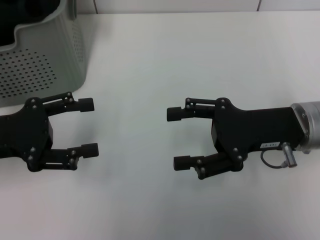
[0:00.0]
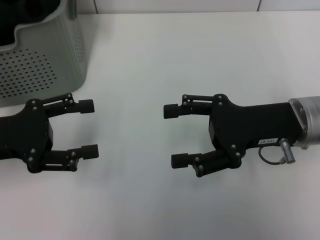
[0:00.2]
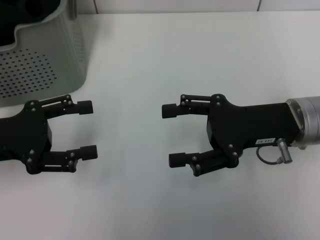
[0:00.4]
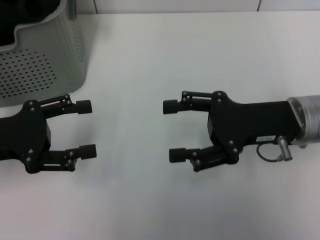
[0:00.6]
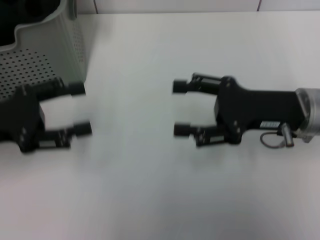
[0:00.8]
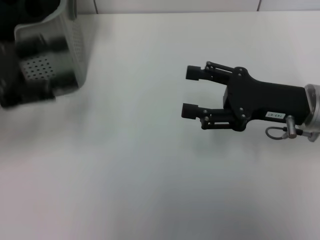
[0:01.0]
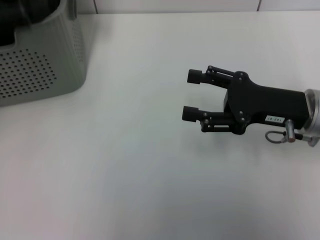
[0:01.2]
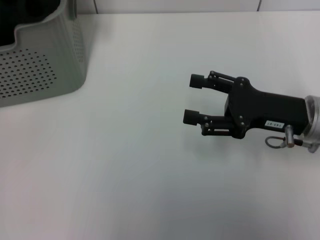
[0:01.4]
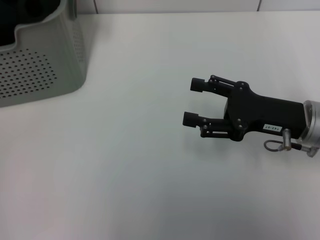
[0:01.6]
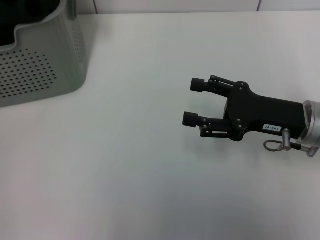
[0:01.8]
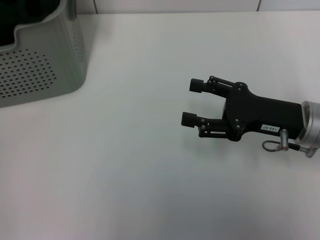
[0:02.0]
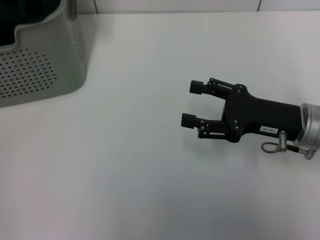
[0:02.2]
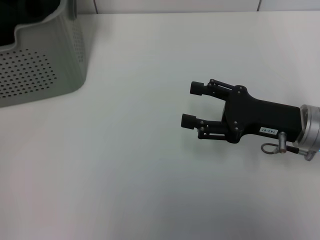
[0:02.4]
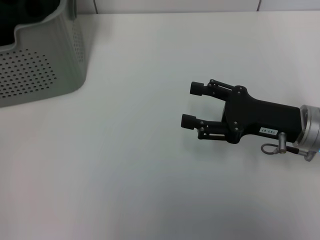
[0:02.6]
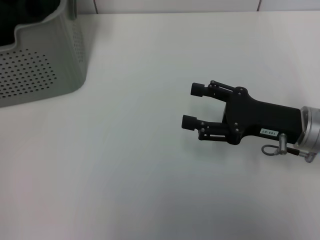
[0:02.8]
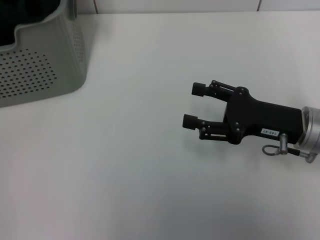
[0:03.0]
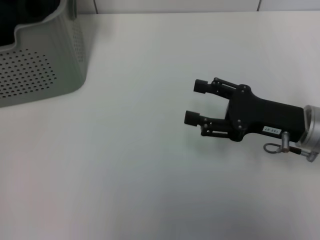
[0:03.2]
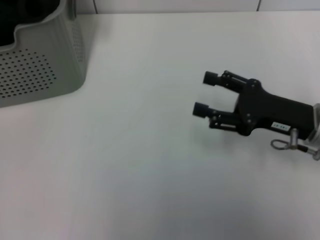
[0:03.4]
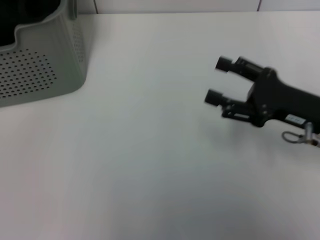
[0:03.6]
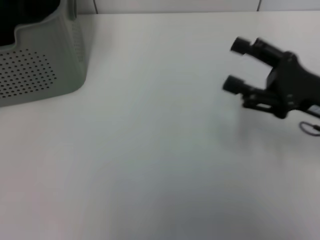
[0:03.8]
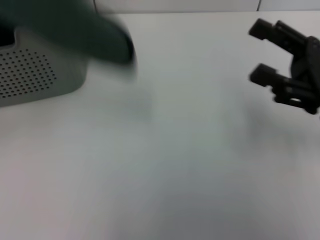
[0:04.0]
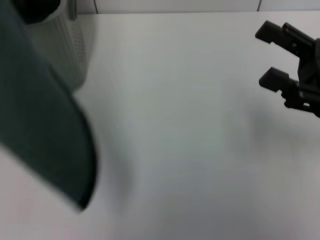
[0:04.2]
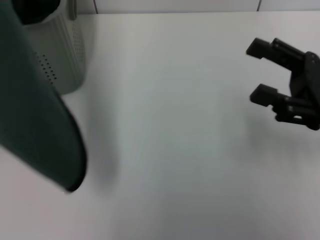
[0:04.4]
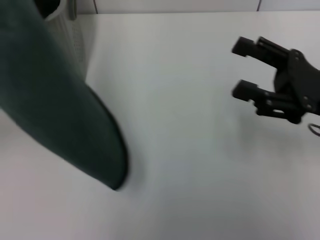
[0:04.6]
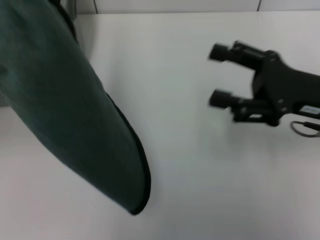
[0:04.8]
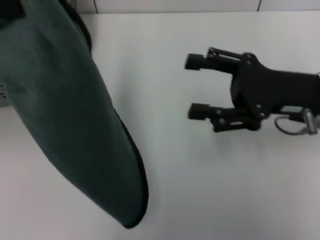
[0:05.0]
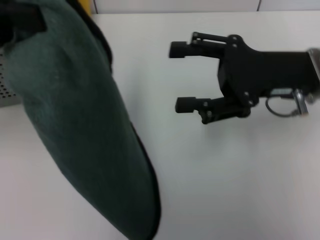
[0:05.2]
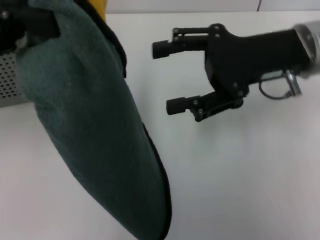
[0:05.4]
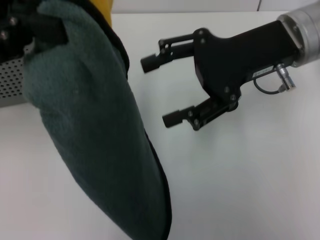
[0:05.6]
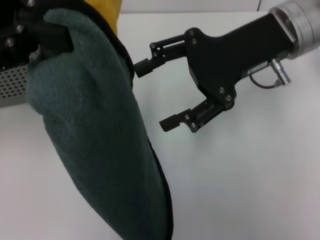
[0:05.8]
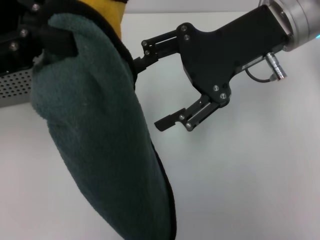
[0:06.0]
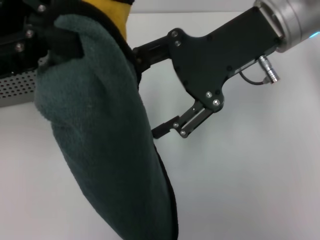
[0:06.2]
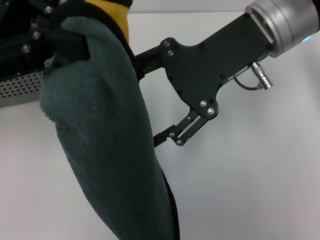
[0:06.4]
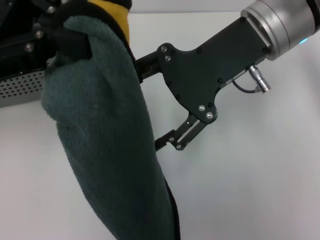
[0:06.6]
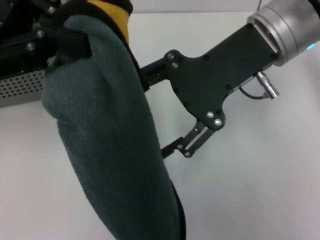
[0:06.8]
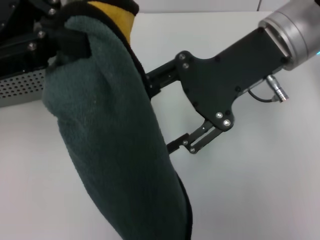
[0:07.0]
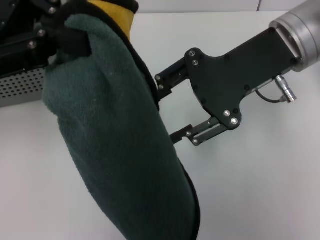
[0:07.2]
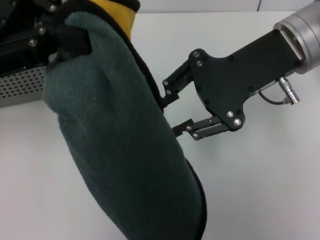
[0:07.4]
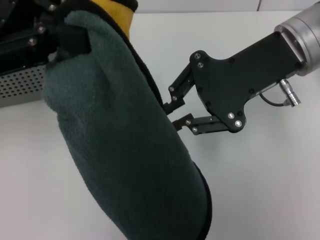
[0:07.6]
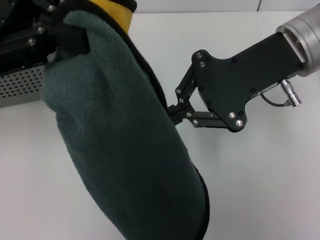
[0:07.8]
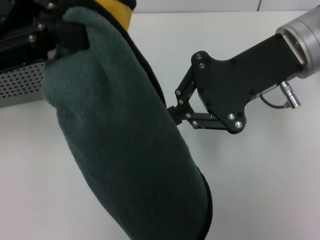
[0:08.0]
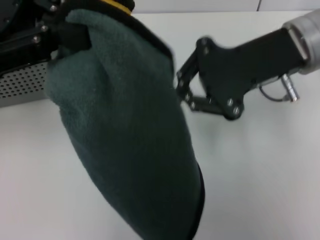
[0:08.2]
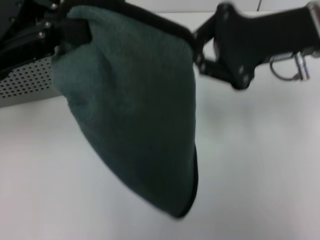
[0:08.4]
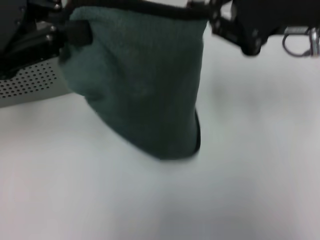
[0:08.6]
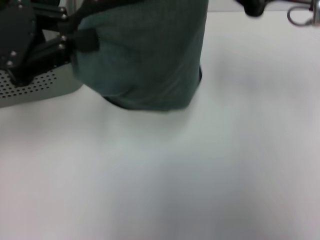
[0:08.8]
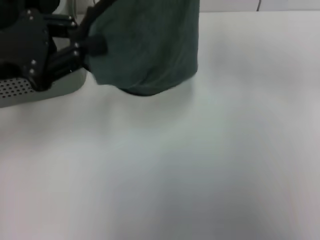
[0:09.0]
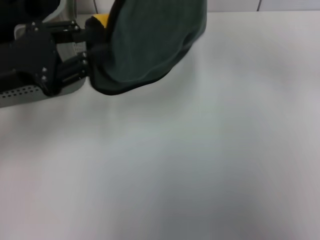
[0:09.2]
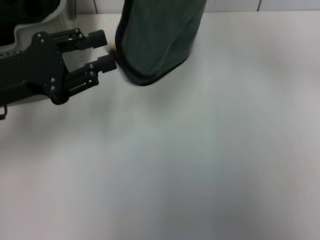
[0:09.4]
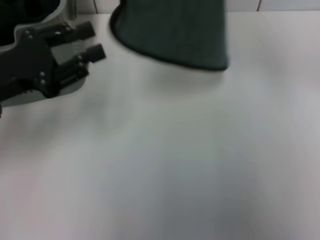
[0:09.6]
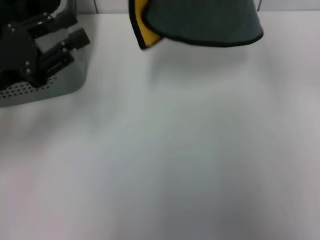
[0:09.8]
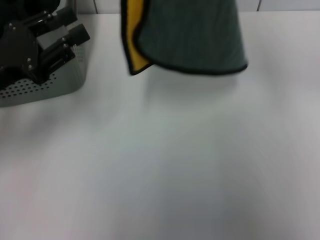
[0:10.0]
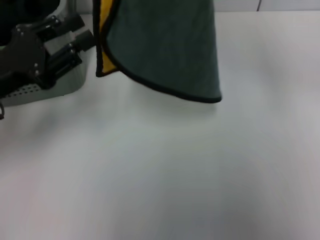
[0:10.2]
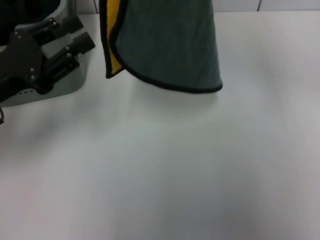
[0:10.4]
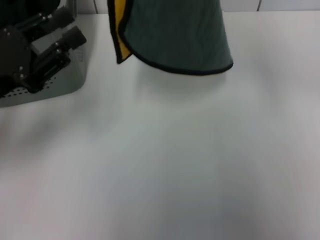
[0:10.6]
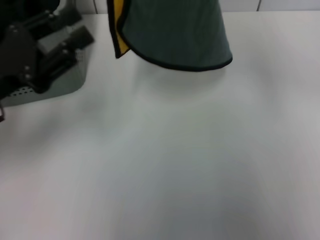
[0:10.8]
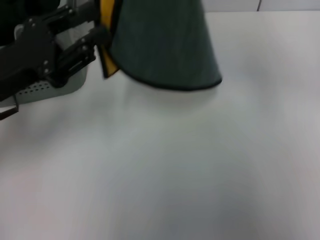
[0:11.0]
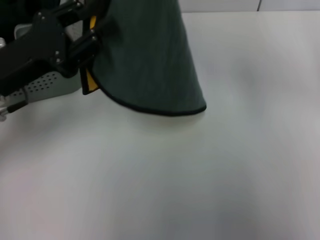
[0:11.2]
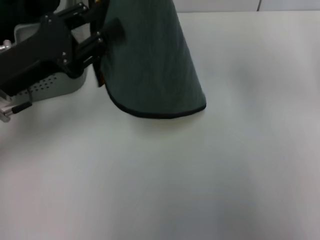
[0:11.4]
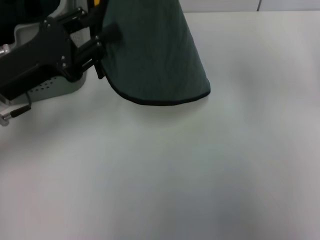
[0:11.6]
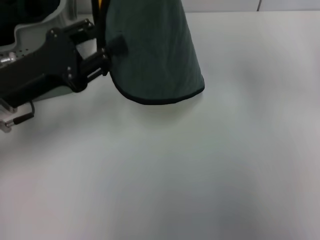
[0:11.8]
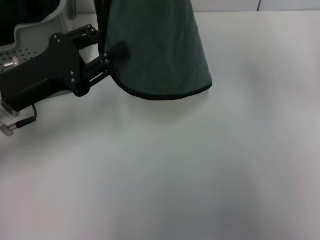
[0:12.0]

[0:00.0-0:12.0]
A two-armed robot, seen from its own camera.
Task of the whole recording: pick up the towel from the storage box and lay it flat on the table.
Step, 0:00.0 to 0:03.0: Pick up a towel with the left gripper.
Step, 0:03.2 to 0:07.6: Spread the towel flat with the left gripper.
0:00.0 to 0:01.6: The left gripper heads upward and forward, covering approximately 20 cm.
0:01.6 to 0:03.0: The left gripper closes.
0:03.0 to 0:04.4: The right gripper ends up about 5 cm from where it was. The left gripper is displaced backward by approximately 10 cm, and closes.
0:04.4 to 0:06.0: The left gripper heads to the right, covering some 10 cm; the right gripper travels to the left, upward and forward by approximately 20 cm.
0:06.0 to 0:07.6: The right gripper closes.
0:07.6 to 0:09.0: The left gripper heads downward, covering approximately 10 cm; the right gripper shifts roughly 5 cm to the right.
0:09.0 to 0:10.4: The left gripper shifts about 5 cm downward. Meanwhile the right gripper heads upward, covering some 5 cm.
0:10.4 to 0:12.0: The grippers make only small movements.

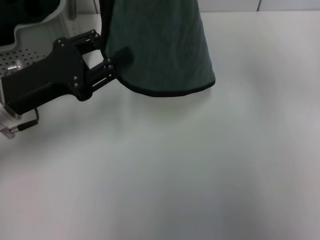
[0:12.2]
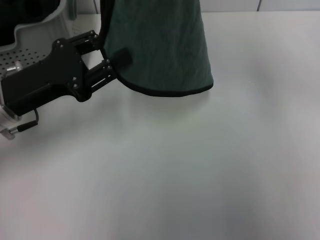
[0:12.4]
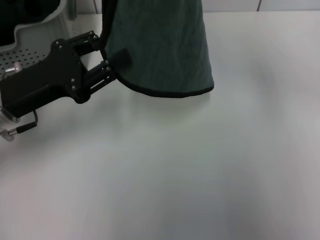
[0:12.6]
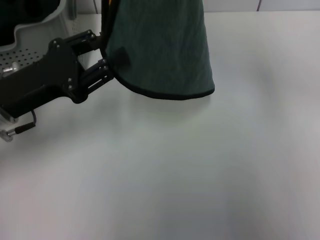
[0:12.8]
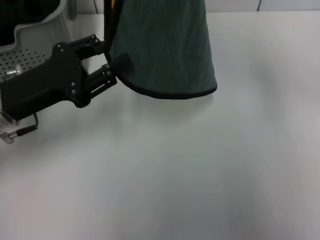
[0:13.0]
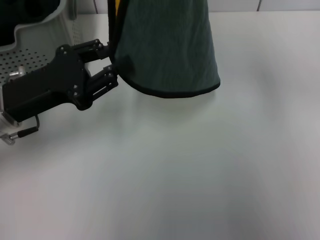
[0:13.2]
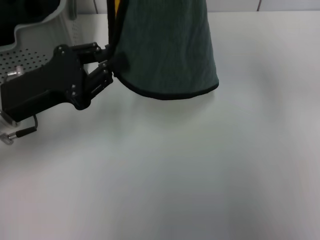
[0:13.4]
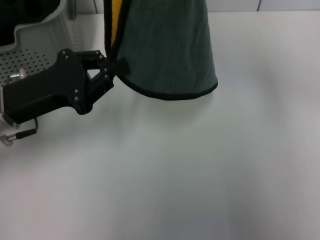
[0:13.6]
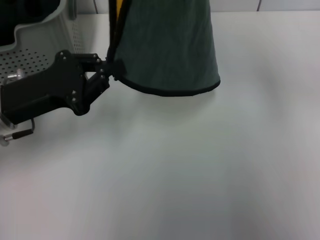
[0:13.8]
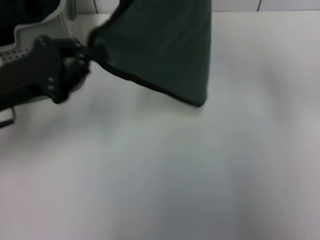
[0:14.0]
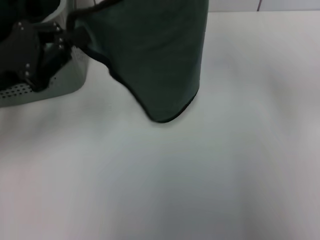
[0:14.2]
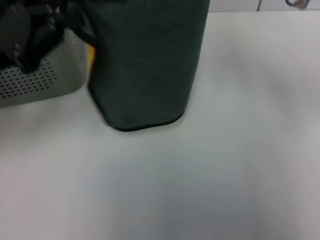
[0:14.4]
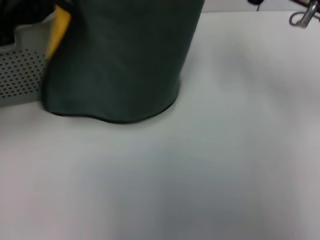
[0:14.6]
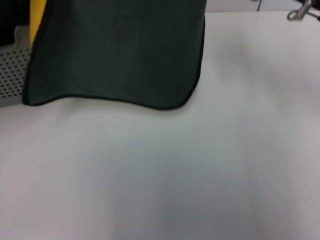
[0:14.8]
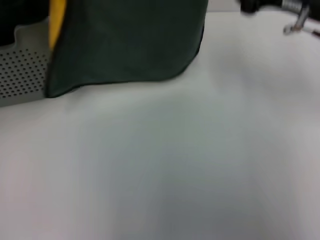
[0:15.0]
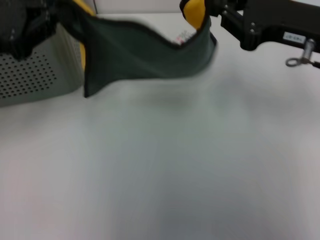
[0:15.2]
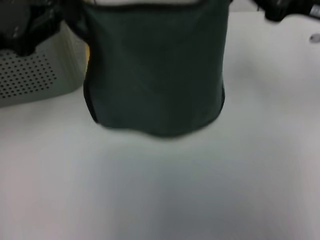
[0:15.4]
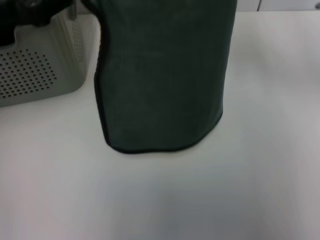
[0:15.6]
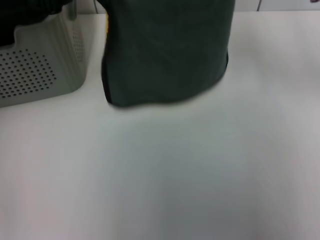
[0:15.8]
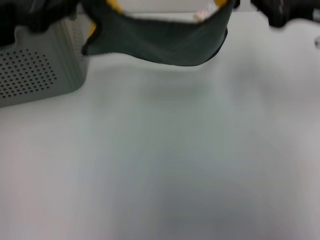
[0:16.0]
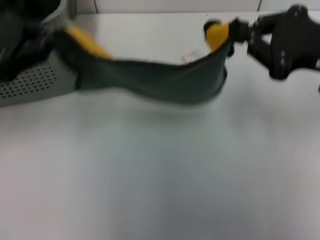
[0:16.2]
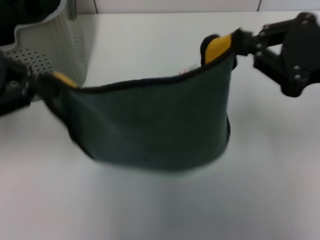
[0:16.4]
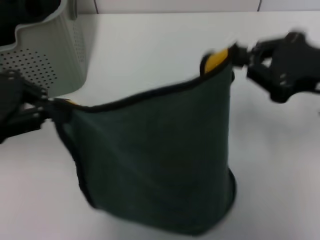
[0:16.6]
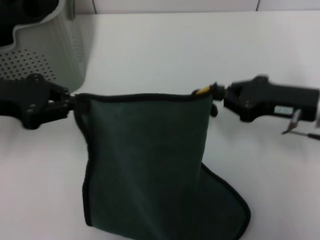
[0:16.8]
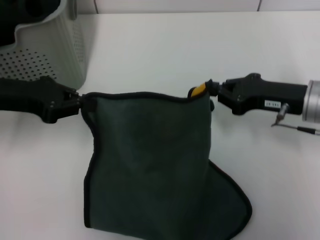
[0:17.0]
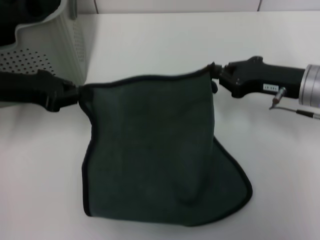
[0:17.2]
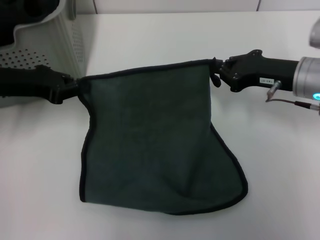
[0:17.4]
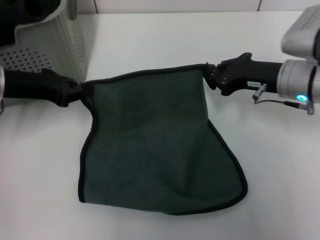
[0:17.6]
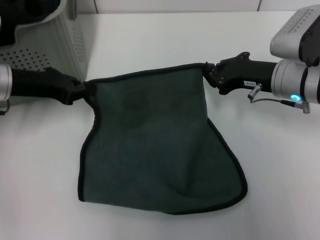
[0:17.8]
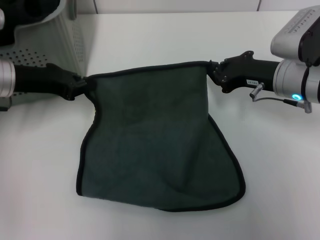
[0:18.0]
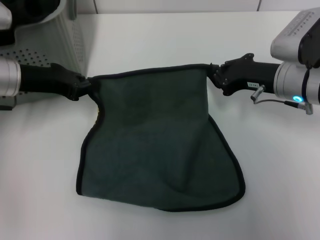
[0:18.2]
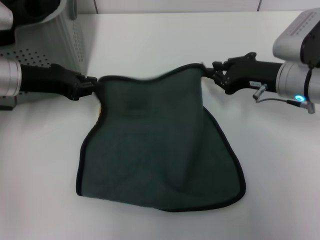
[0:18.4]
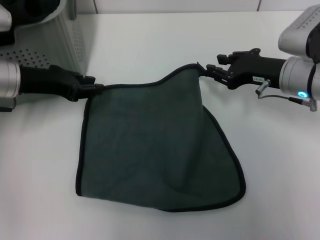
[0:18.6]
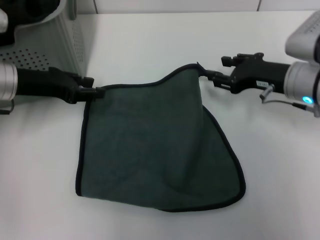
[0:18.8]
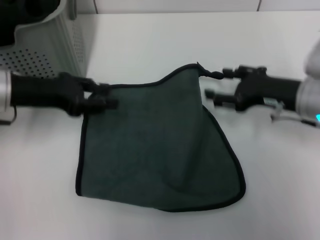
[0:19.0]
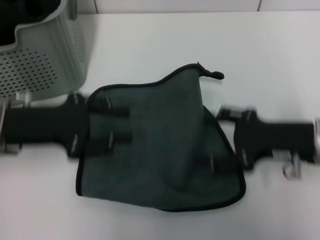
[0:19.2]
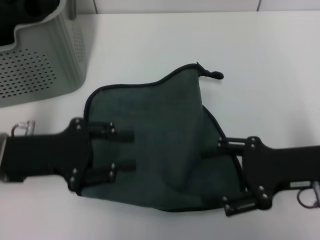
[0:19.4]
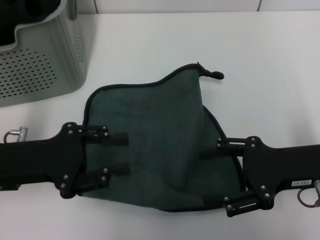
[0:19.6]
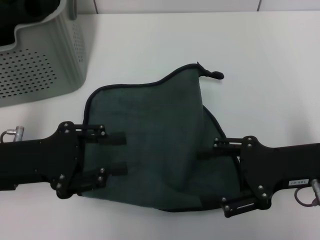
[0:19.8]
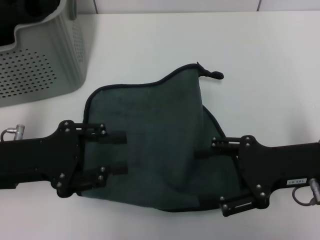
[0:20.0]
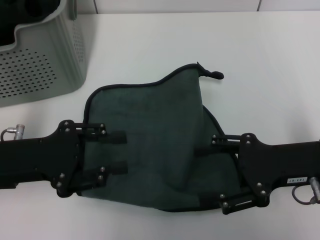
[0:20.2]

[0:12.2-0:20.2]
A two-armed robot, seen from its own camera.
Task of the whole recording: pick up the towel from the storage box and lay it flat on the table.
Step, 0:12.2 to 0:18.6: Spread the towel flat with the right gripper.
0:12.2 to 0:13.8: The left gripper closes.
0:13.8 to 0:15.4: The right gripper travels downward and to the right by about 10 cm, while the left gripper goes about 10 cm upward.
0:15.4 to 0:17.0: The left gripper swings forward and backward, about 10 cm each way, with 2 reversals. The right gripper is displaced downward by approximately 10 cm.
0:17.0 to 0:18.6: The right gripper moves approximately 5 cm; the left gripper moves about 5 cm.
0:18.6 to 0:20.2: Both grippers travel together backward, some 10 cm. The right gripper opens up.

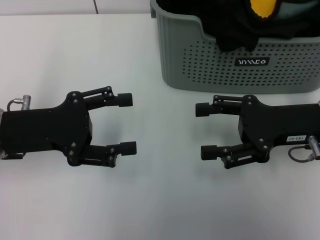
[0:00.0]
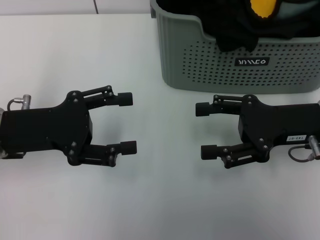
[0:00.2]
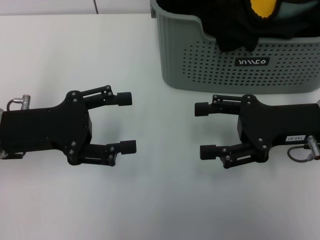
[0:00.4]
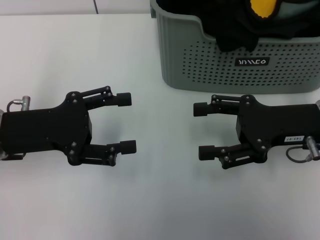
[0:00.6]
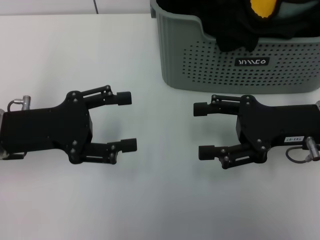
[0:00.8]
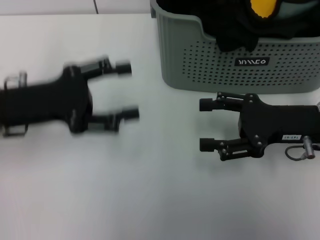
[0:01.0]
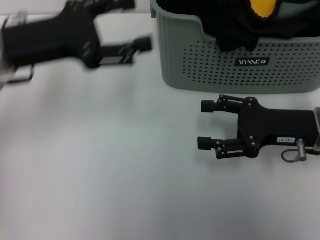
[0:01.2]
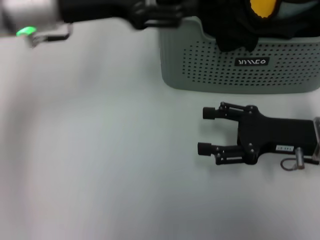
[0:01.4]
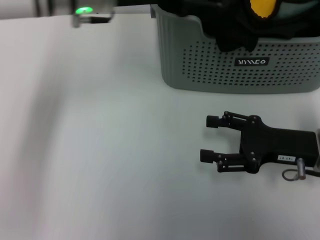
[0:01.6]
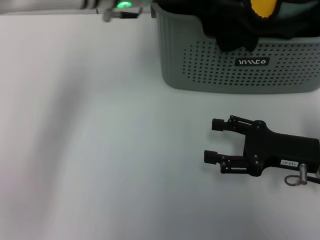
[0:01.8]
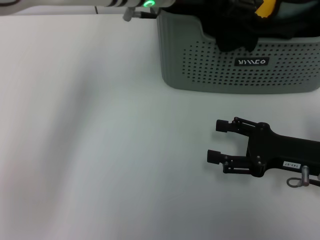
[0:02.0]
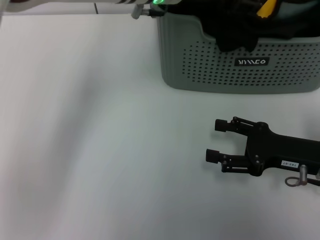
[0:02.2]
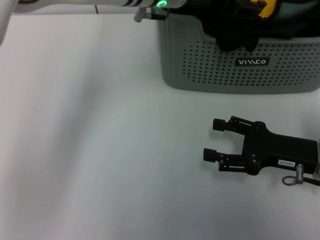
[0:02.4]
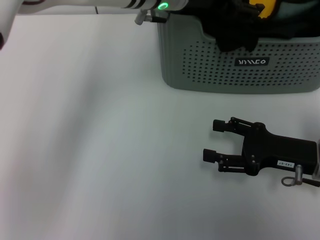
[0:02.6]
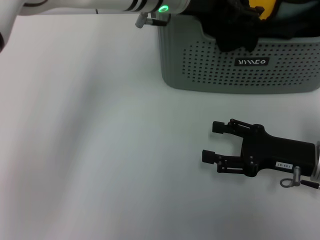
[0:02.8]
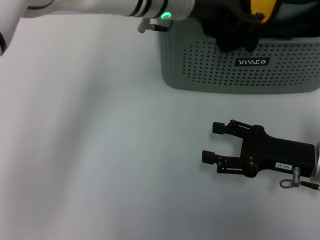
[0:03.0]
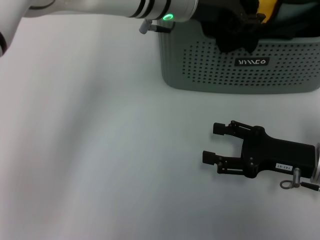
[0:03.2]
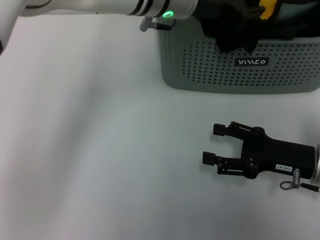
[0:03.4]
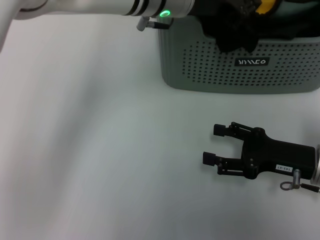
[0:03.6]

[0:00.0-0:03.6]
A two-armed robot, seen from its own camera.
Task of the whole recording: pick up the towel from the storage box and lay it flat on the table.
0:00.0 to 0:01.8: The left gripper travels to the right, forward and upward by about 25 cm. The right gripper travels downward by some 5 cm.
0:01.8 to 0:03.6: The left gripper ends up approximately 5 cm from where it was, and closes up.
